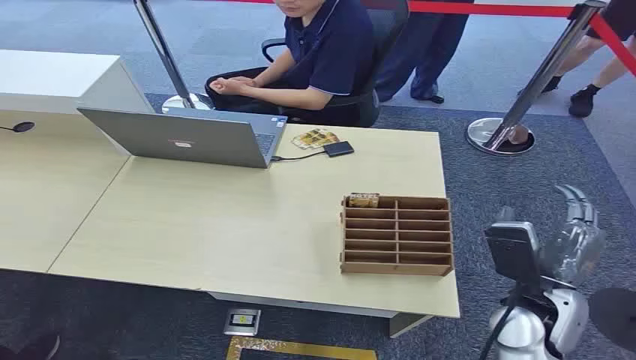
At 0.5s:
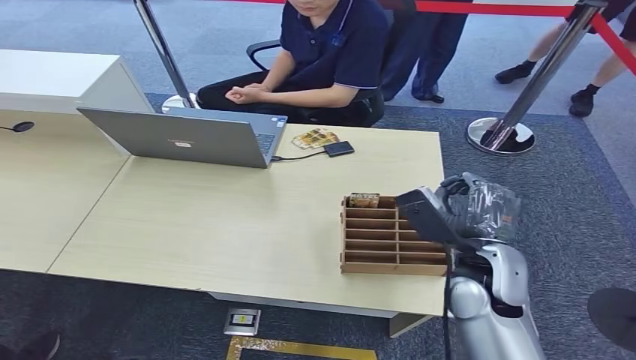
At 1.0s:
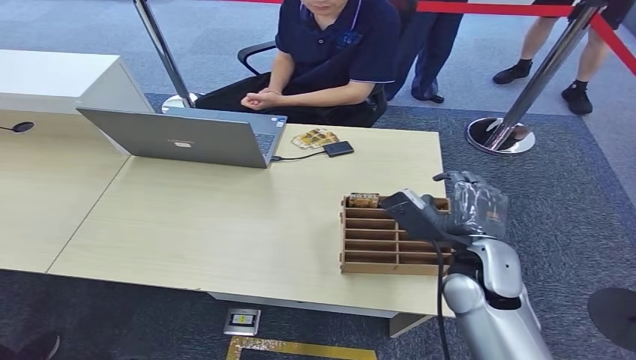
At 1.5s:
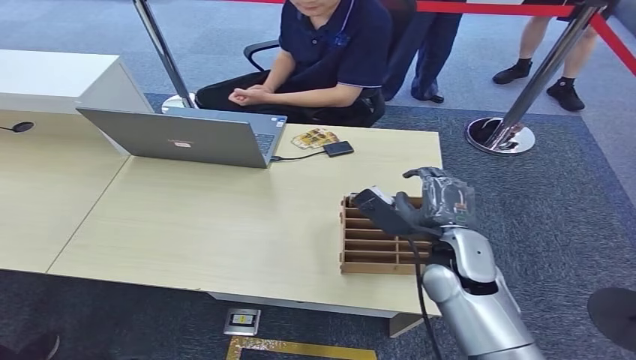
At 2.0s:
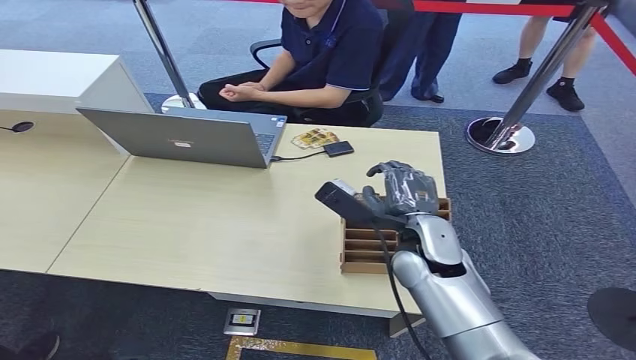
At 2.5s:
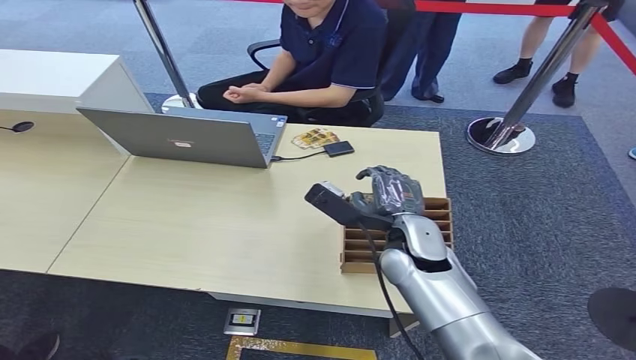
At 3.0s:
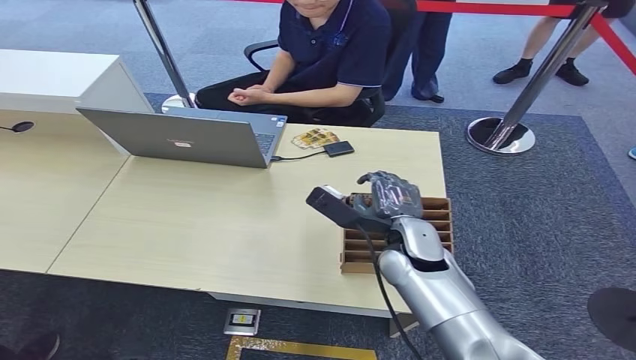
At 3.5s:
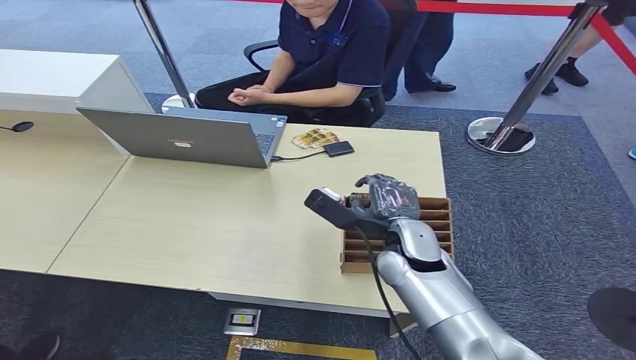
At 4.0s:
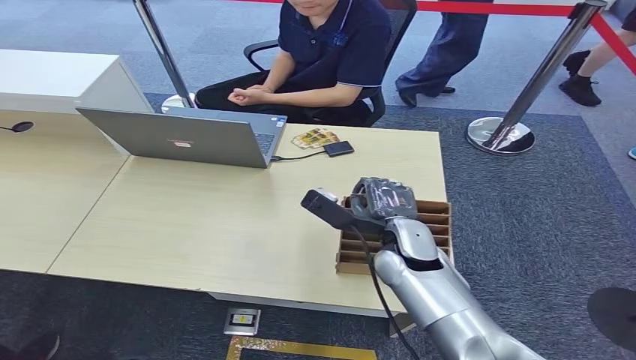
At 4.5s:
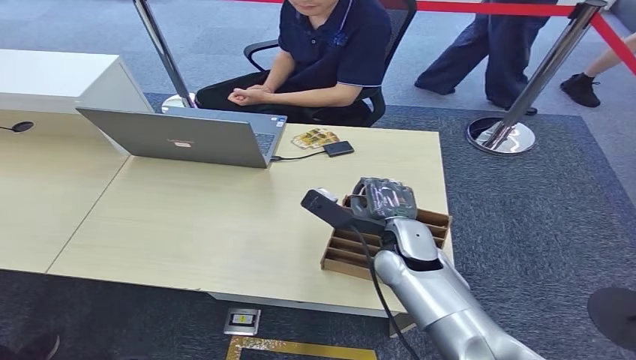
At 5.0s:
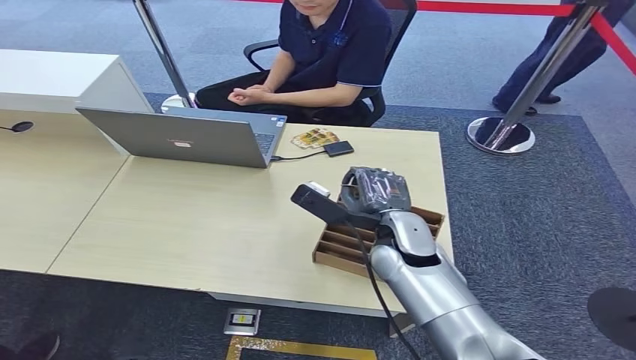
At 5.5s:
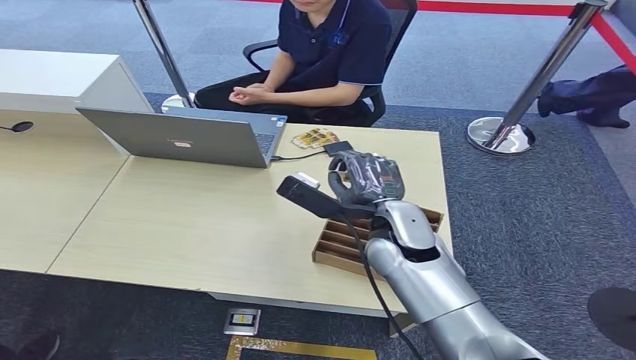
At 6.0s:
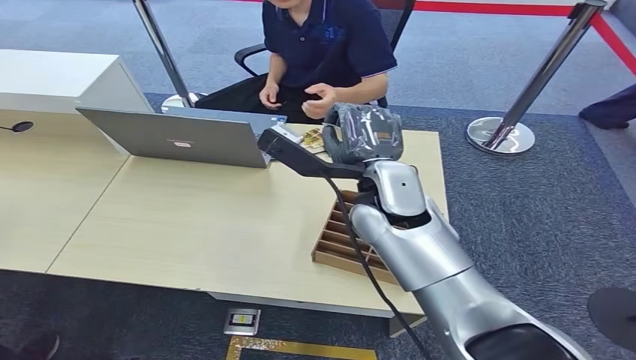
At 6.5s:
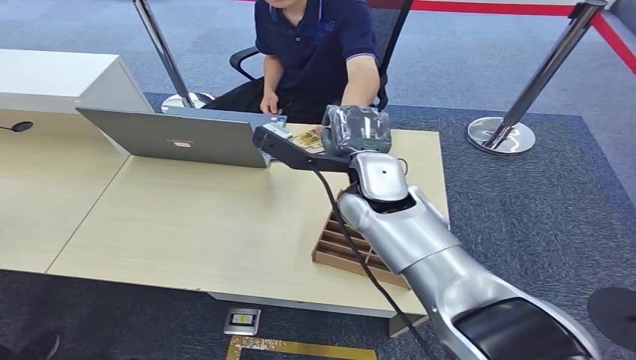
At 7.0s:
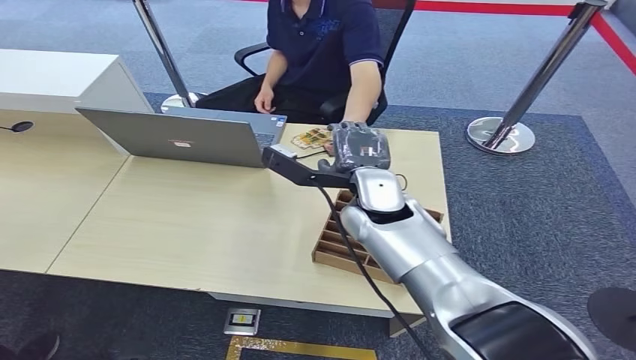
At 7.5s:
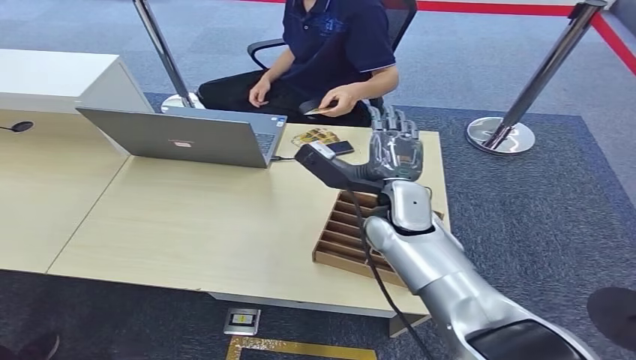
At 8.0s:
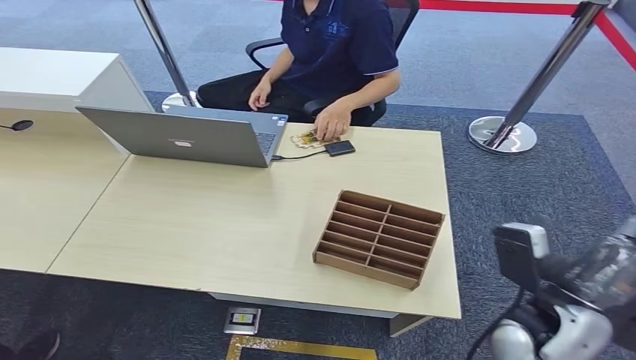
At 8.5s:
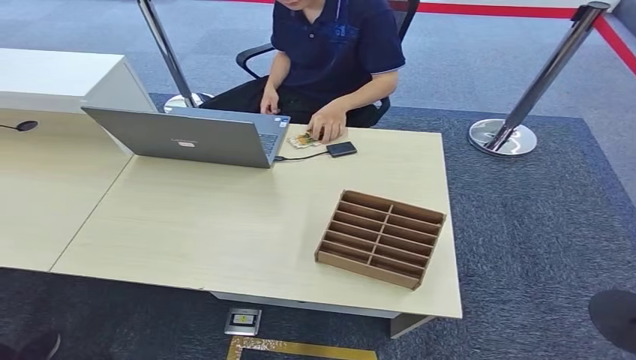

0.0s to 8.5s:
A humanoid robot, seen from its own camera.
Step, 0.0s to 4.5s: Pick up the room card from the card holder.
Step, 5.0s to 8.5s: Hand the room card to the target.
2.0s to 4.0s: The hands move only a little.
6.5s to 8.5s: The right hand heads to the right, backward and downward, covering some 50 cm.

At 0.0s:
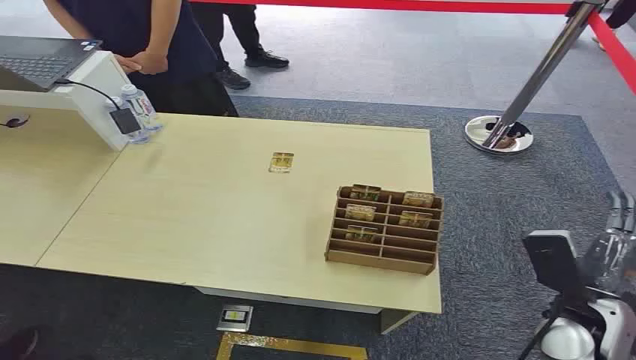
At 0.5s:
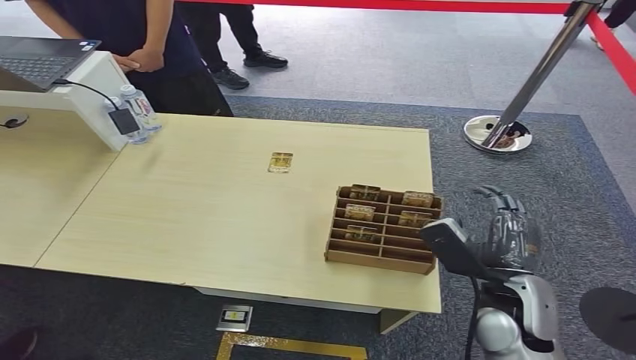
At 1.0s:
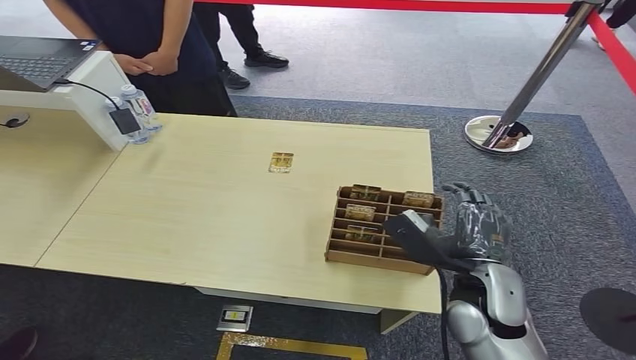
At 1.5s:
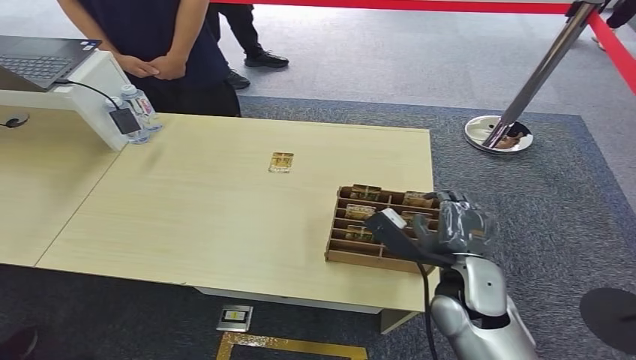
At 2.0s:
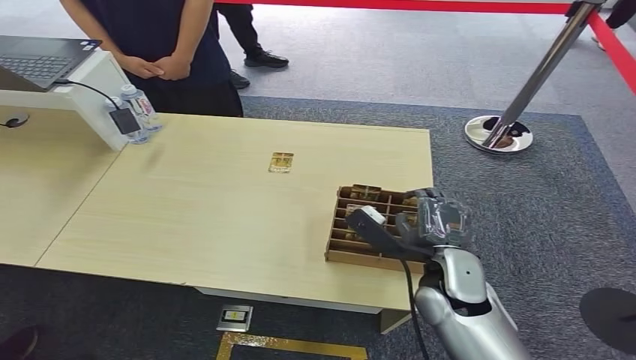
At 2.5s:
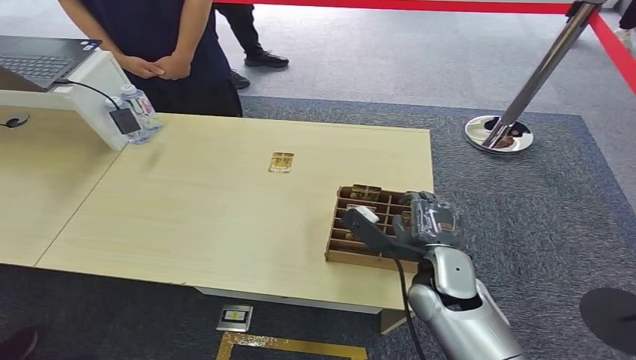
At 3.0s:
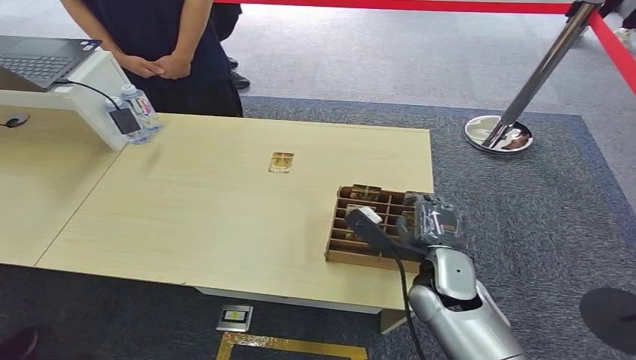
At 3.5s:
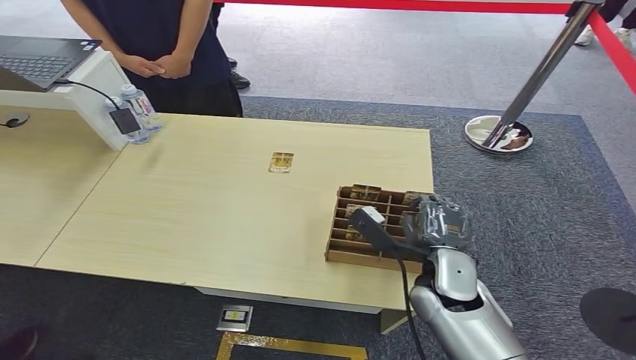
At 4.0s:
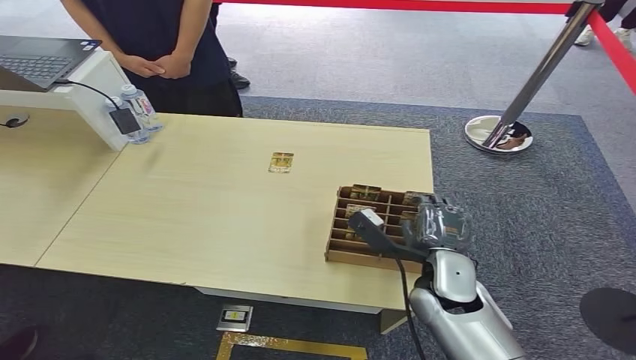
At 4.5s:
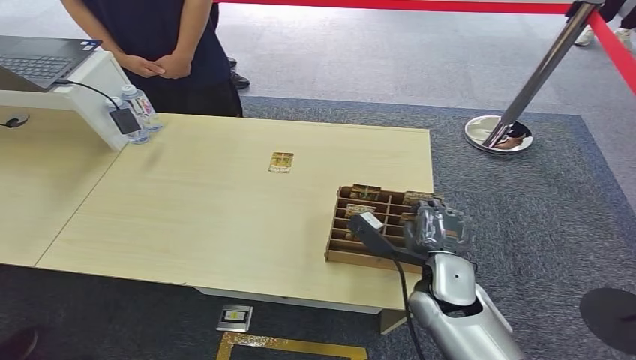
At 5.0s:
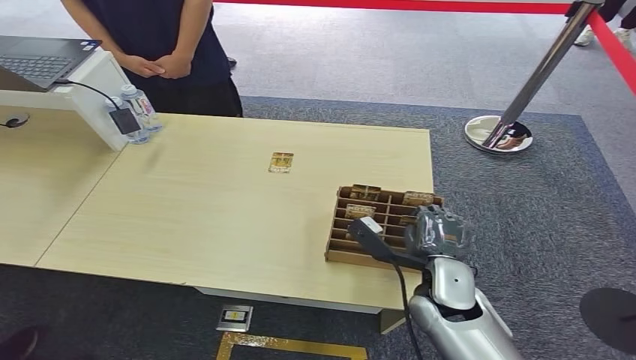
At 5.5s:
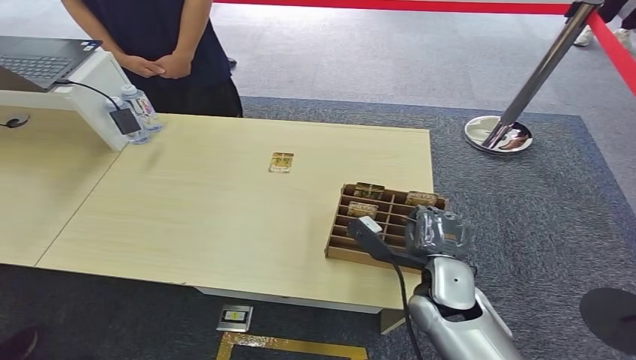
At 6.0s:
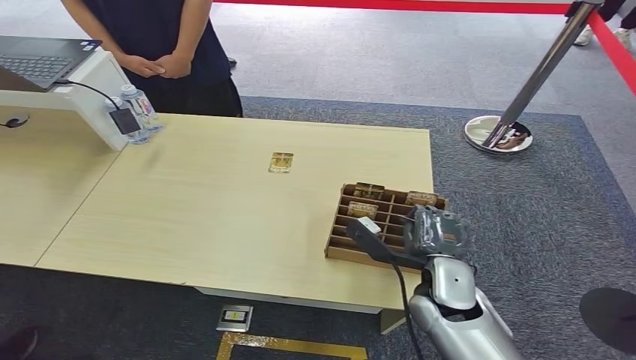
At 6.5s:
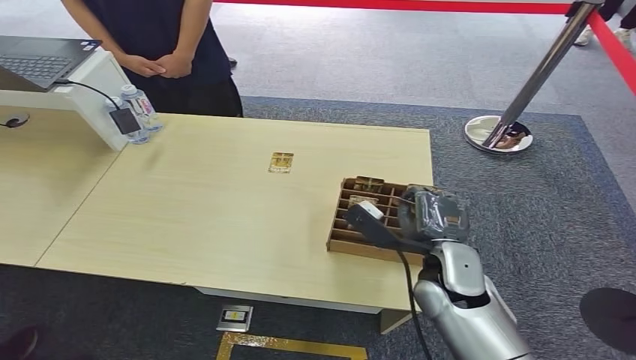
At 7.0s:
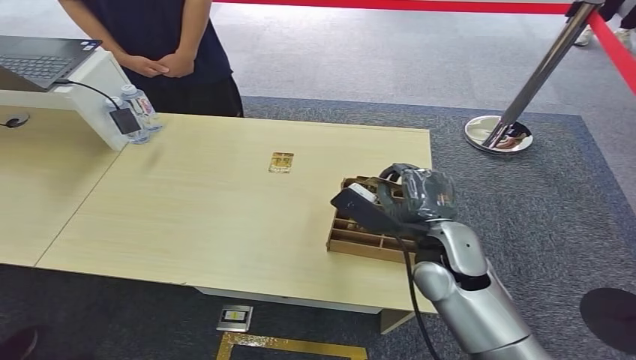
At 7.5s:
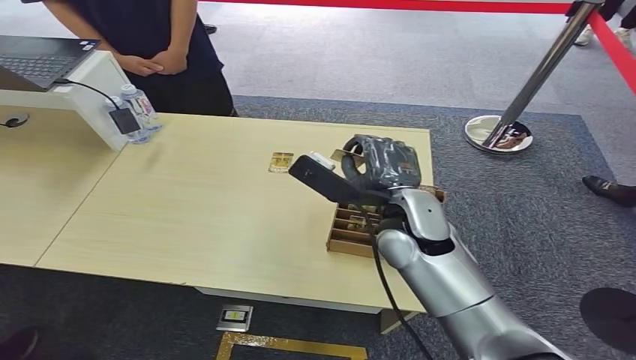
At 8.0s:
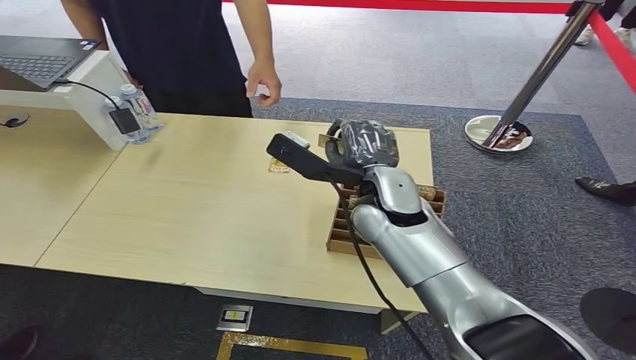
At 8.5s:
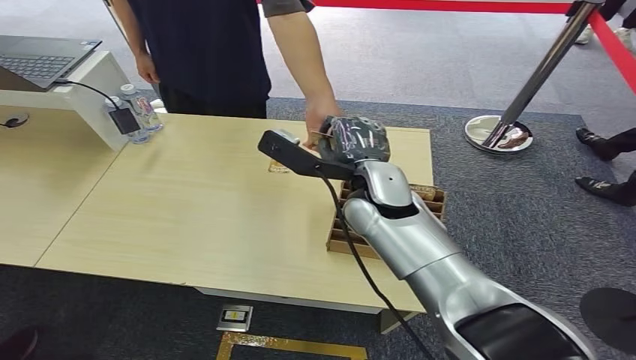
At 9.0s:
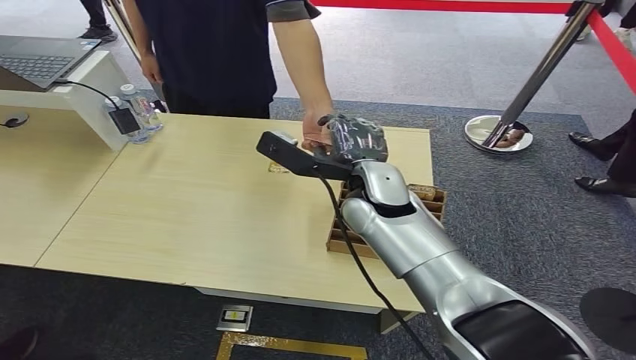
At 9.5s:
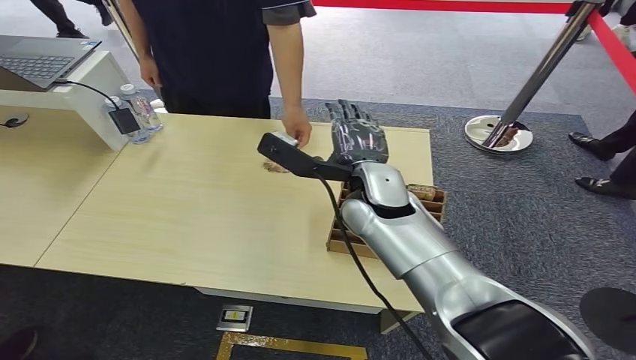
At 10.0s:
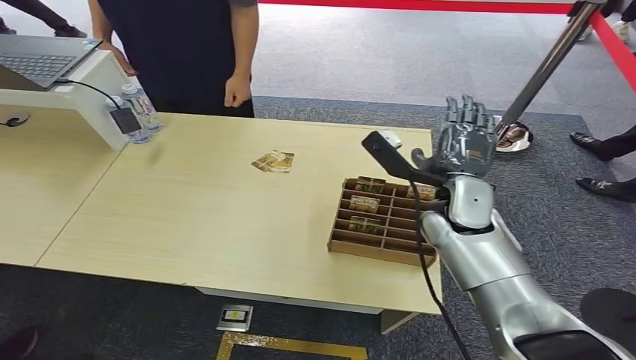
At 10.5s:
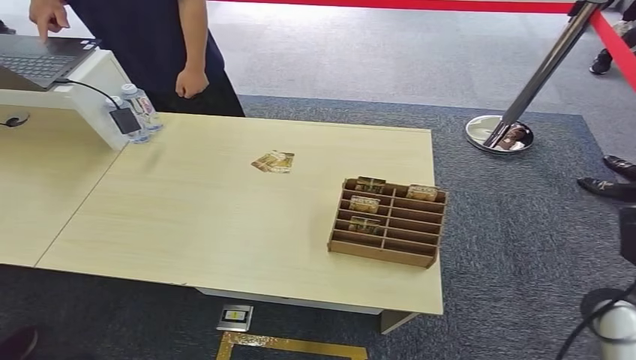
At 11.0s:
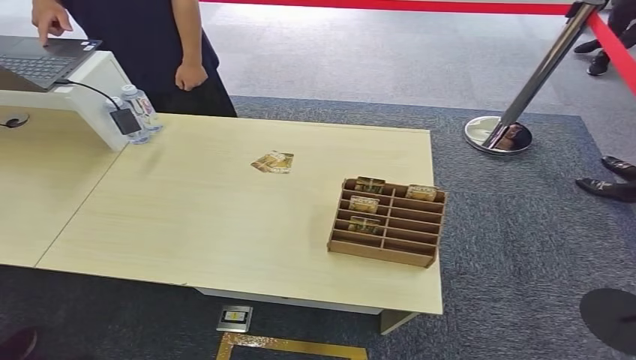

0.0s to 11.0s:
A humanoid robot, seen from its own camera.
Step, 0.0s to 7.5s: Pick up the room card from the card holder.
Step, 8.0s to 11.0s: Hand the room card to the target.
2.0s to 5.5s: There are only small adjustments of the hands.
5.5s to 7.5s: The right hand travels upward, forward and to the left by some 15 cm.
